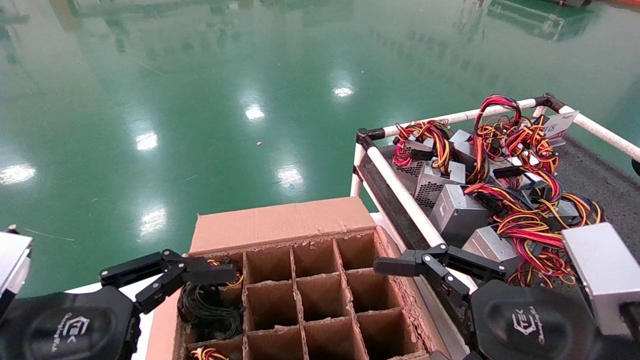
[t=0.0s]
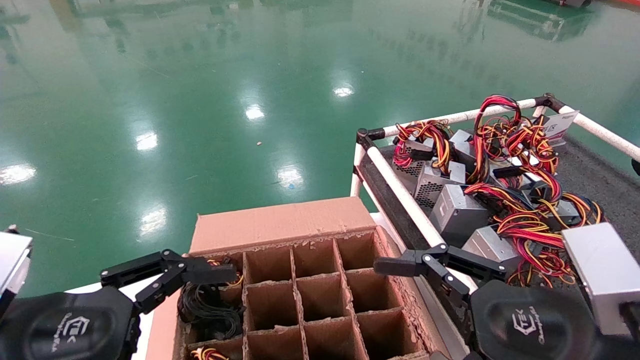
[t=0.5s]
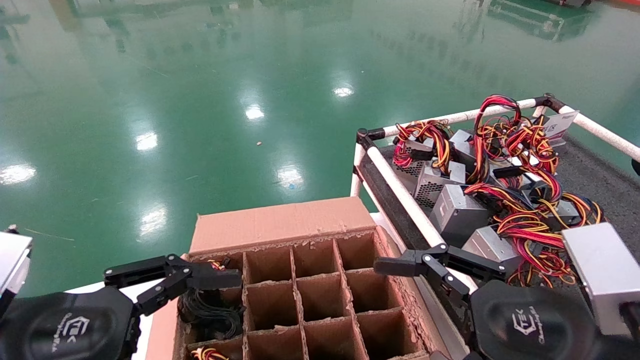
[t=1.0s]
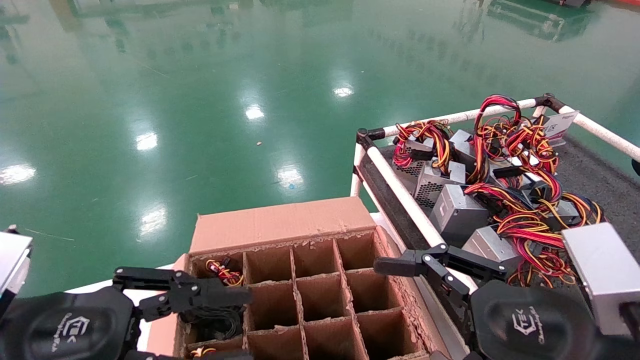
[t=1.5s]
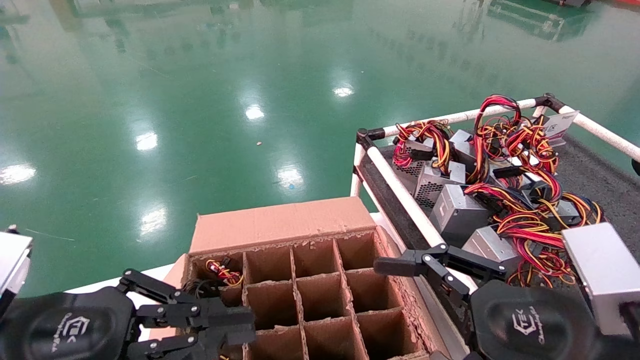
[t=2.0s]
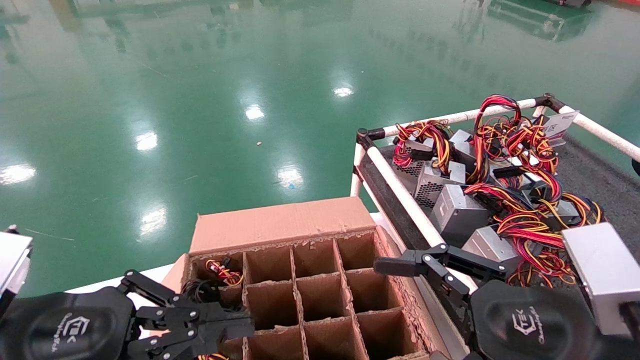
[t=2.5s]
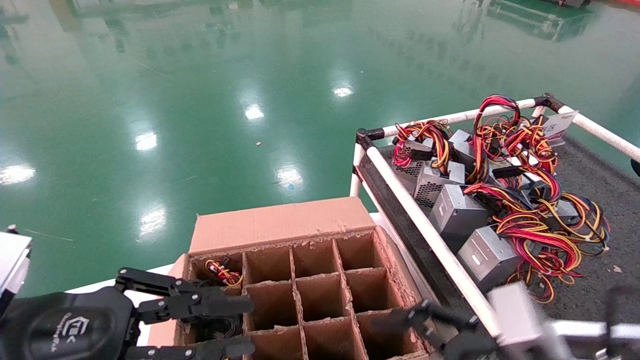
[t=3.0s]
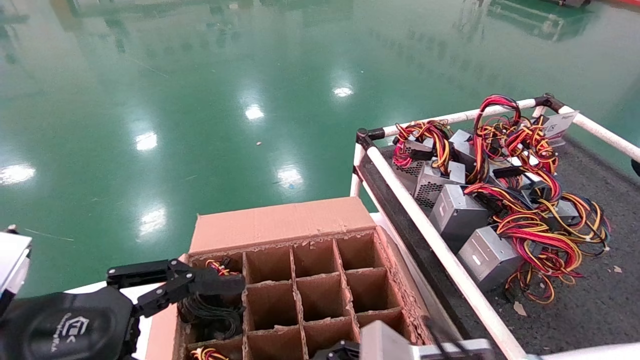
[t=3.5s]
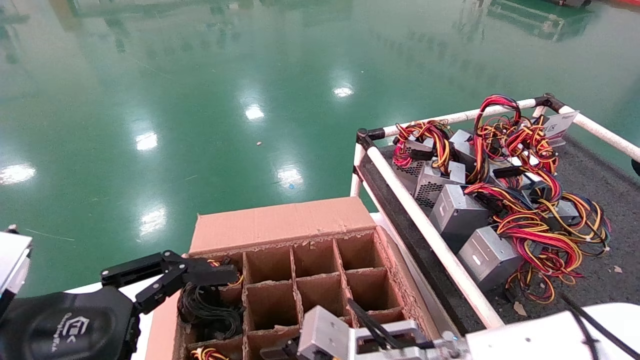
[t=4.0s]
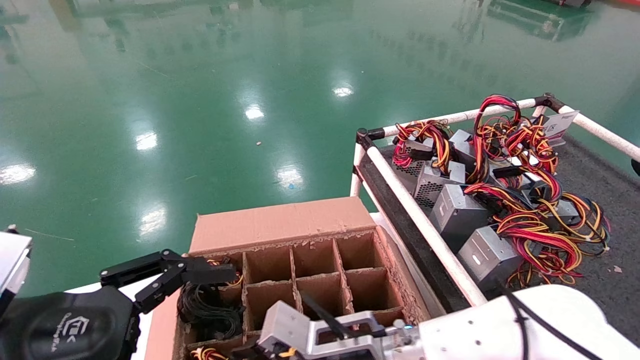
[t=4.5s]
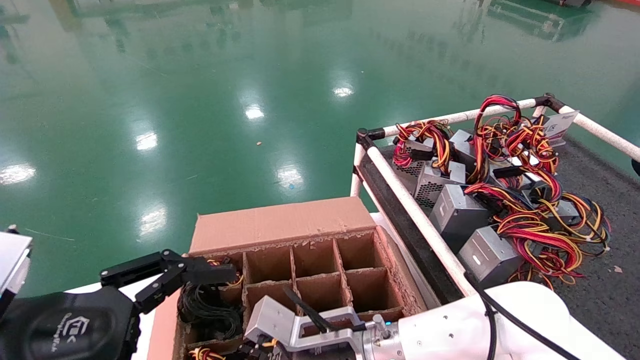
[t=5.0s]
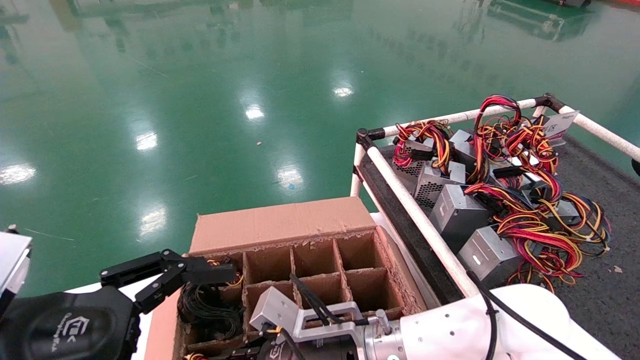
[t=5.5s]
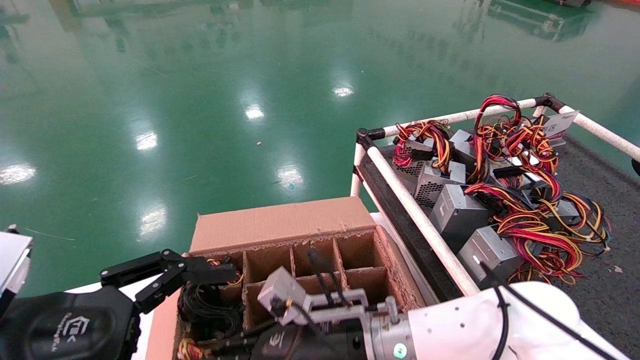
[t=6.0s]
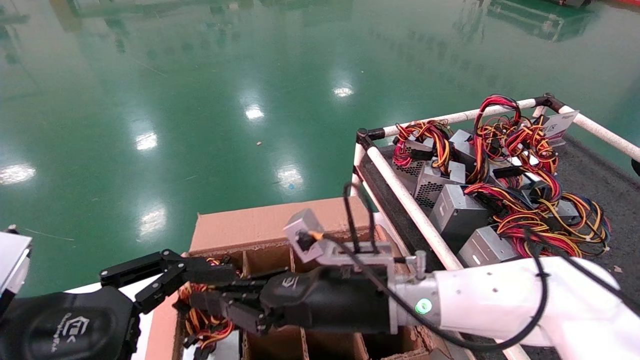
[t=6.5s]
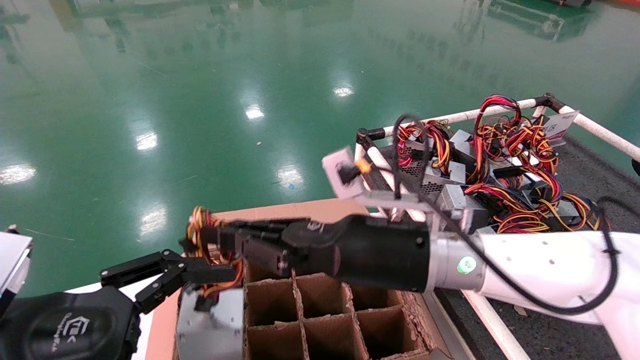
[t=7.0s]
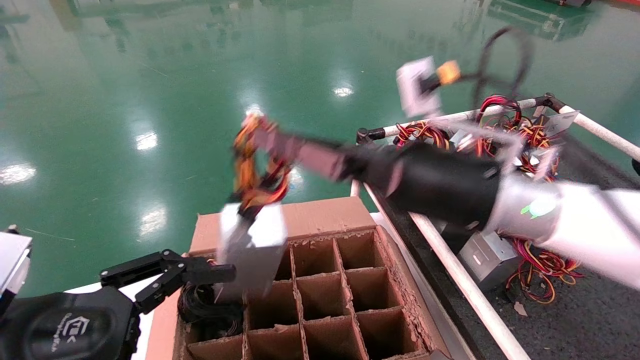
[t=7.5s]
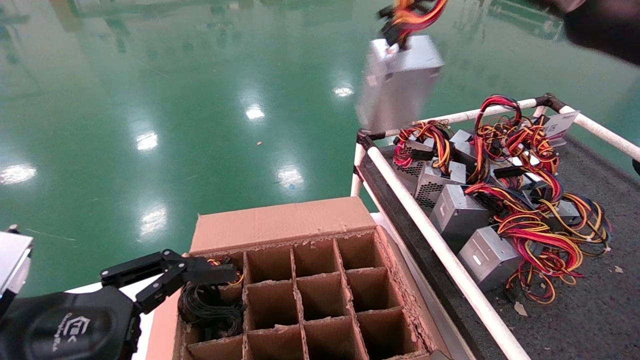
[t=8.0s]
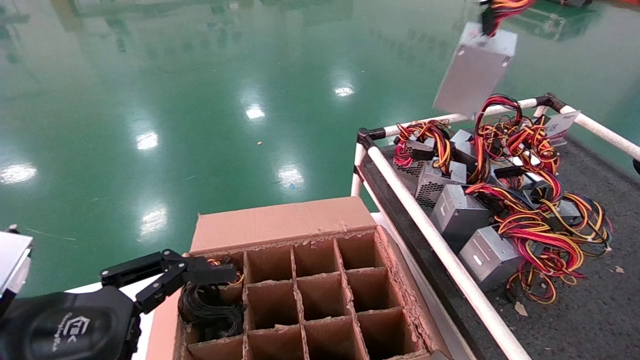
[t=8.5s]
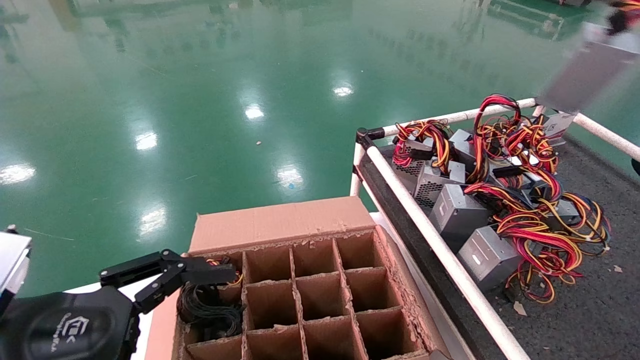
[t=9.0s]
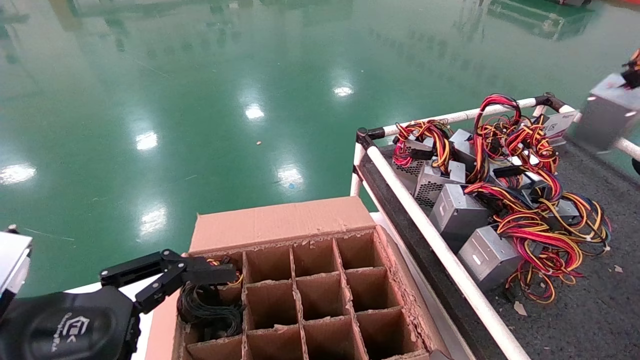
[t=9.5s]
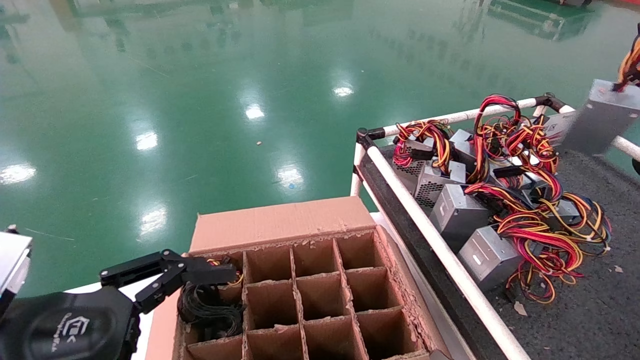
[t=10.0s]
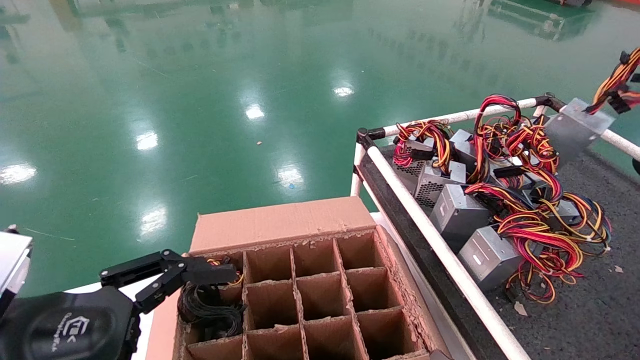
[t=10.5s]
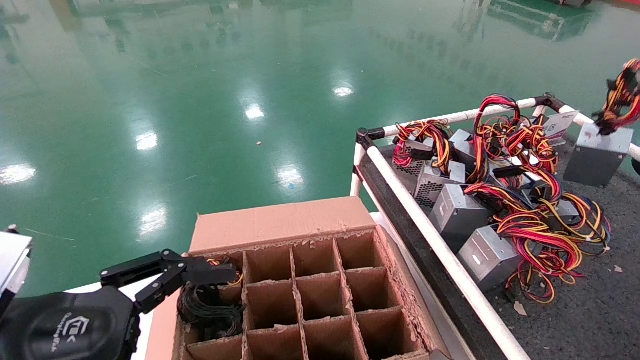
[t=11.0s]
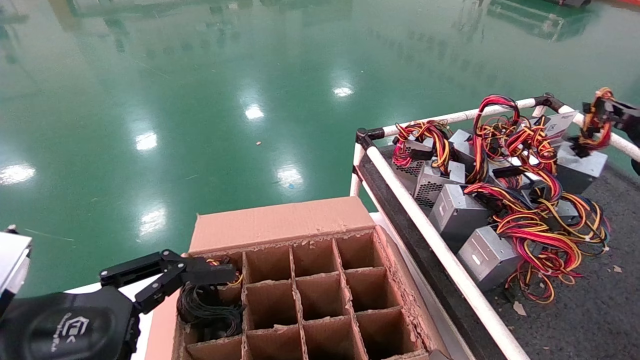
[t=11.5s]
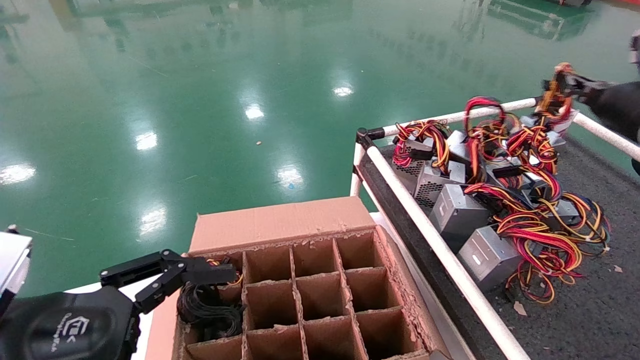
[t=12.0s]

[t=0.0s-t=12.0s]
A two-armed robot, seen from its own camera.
Step, t=3.0s to t=6.0s: Grab and lift the power supply from the large box.
t=0.0s to t=2.0s: The left gripper closes.
t=2.0s to t=4.0s: The left gripper opens its fingers. Meanwhile the right gripper is displaced to the left, downward and forward by about 20 cm.
t=4.0s to t=6.0s: The right gripper is displaced to the left by some 5 cm, and closes up.
t=6.0s to t=8.0s: The right gripper travels upward and to the right by roughly 40 cm.
t=8.0s to t=10.0s: The right gripper travels to the right by about 25 cm.
t=10.0s to t=12.0s: The right gripper heads to the left, forward and downward, covering some 10 cm.

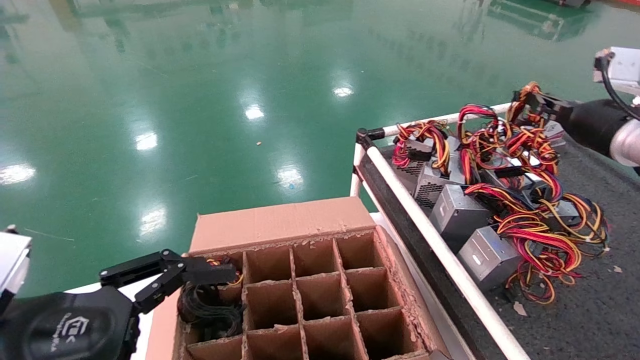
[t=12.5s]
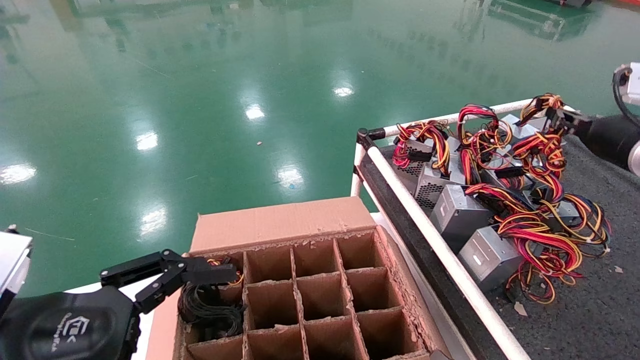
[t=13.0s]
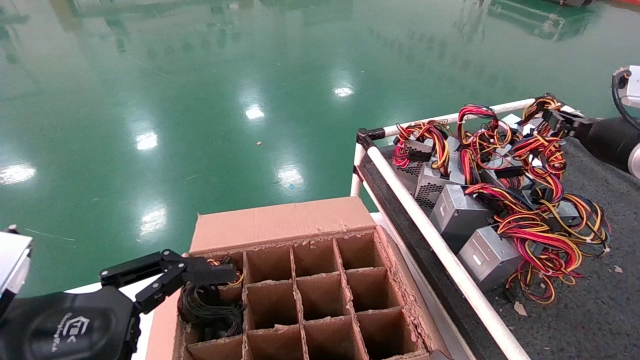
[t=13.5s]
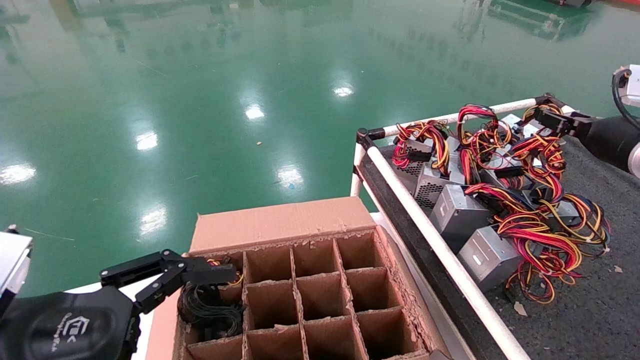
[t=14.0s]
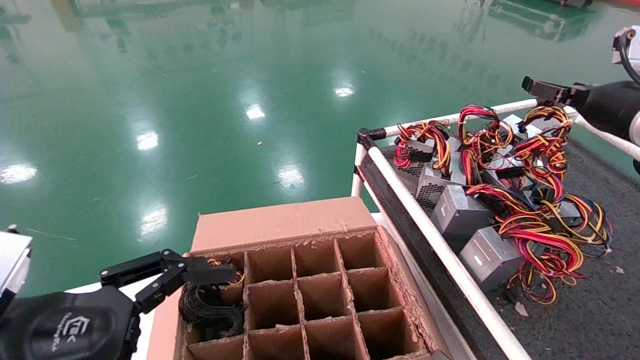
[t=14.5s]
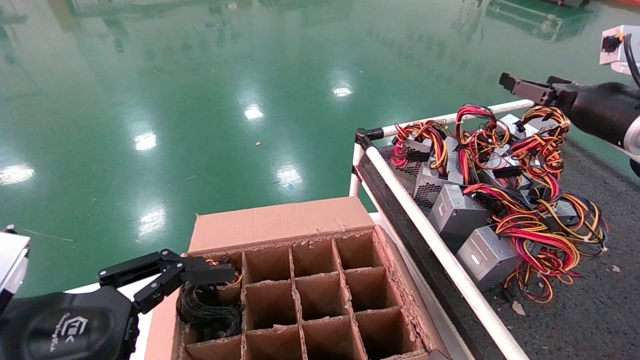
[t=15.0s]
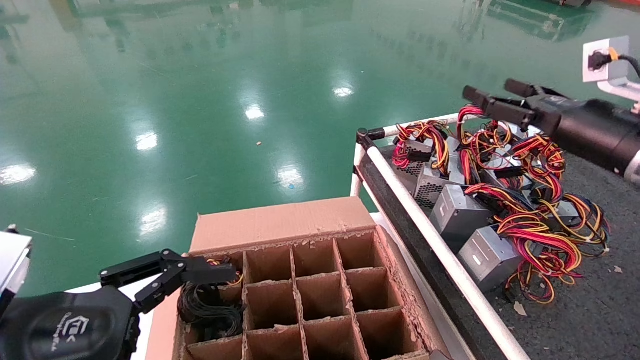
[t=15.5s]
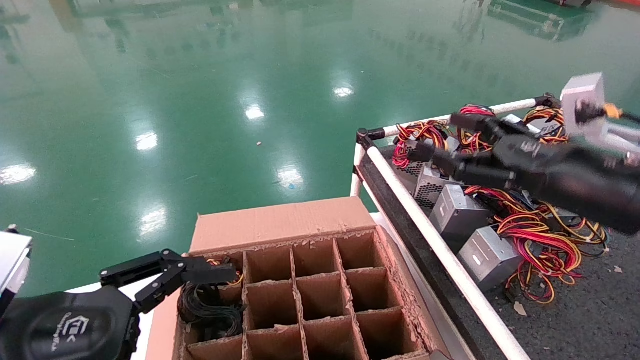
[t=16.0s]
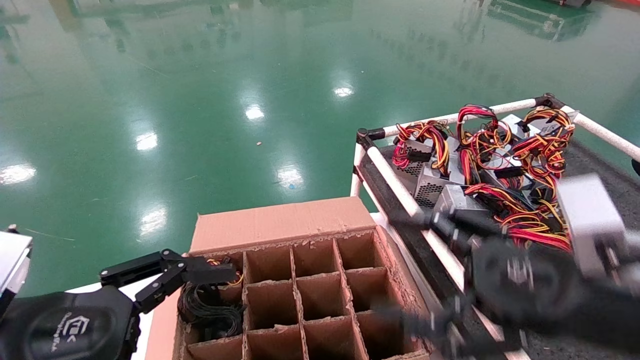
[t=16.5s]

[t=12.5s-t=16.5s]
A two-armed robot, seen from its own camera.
t=12.5s to t=14.5s: The right gripper opens its fingers.
t=14.5s to t=16.5s: The right gripper is displaced backward, to the left and downward by roughly 30 cm.
